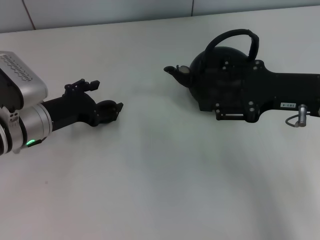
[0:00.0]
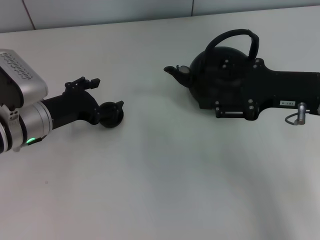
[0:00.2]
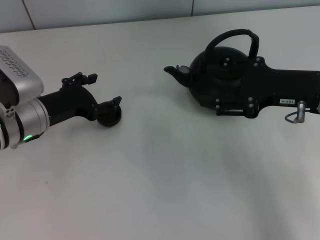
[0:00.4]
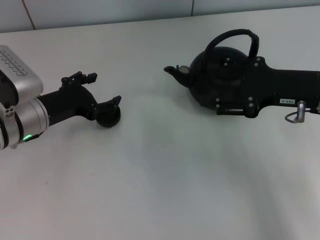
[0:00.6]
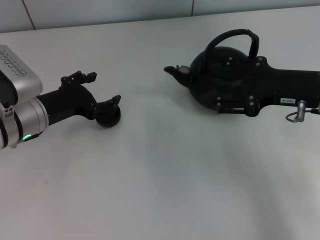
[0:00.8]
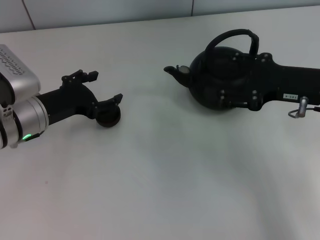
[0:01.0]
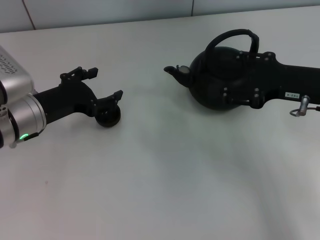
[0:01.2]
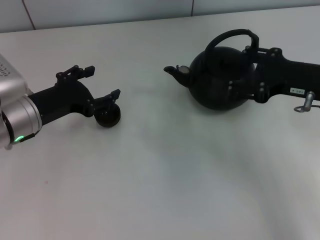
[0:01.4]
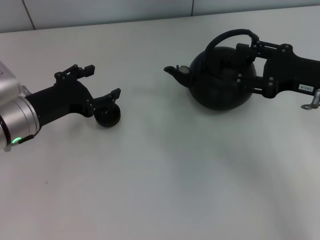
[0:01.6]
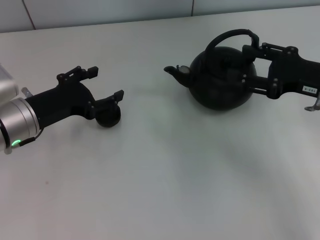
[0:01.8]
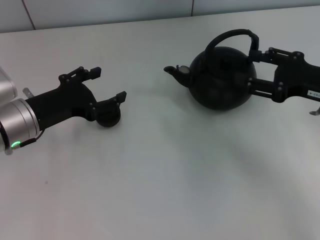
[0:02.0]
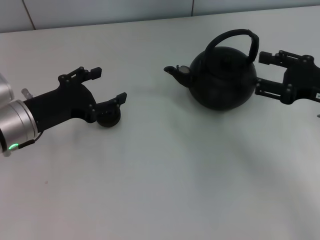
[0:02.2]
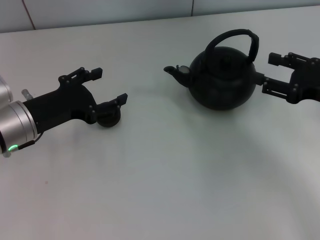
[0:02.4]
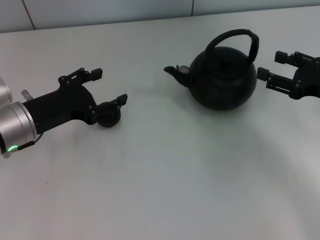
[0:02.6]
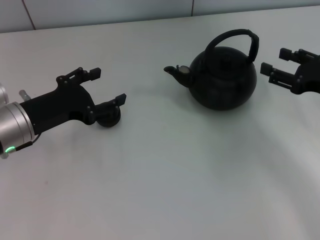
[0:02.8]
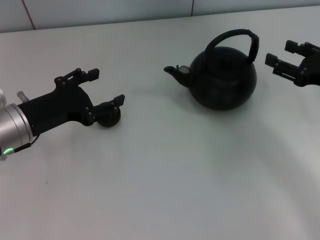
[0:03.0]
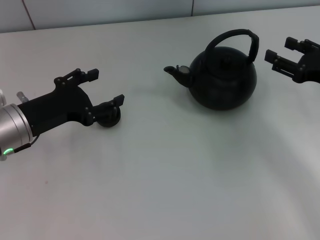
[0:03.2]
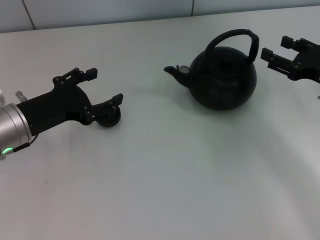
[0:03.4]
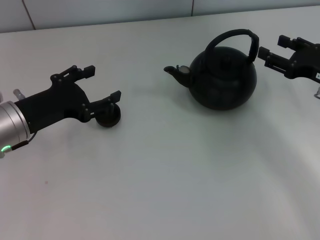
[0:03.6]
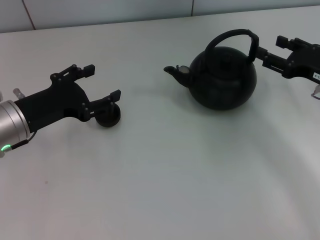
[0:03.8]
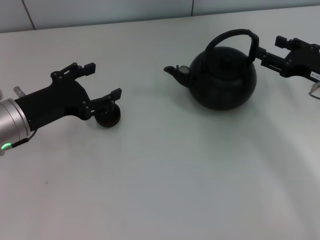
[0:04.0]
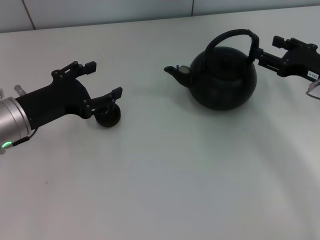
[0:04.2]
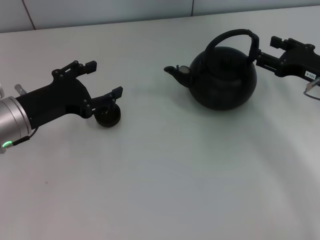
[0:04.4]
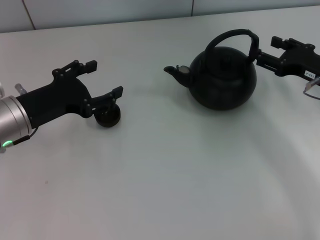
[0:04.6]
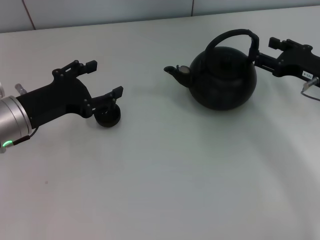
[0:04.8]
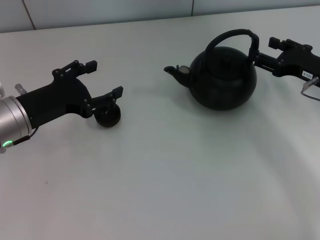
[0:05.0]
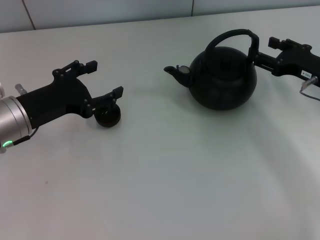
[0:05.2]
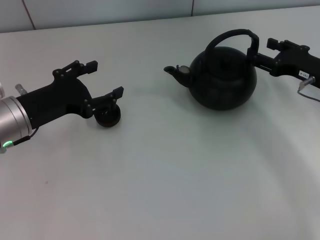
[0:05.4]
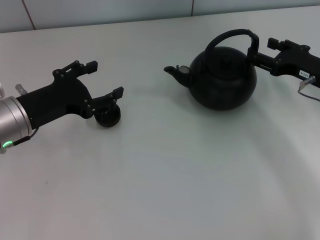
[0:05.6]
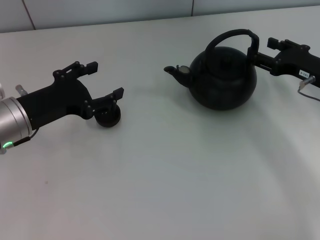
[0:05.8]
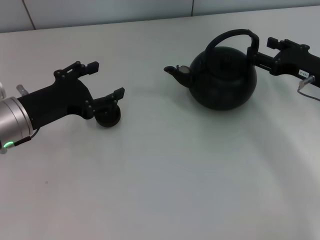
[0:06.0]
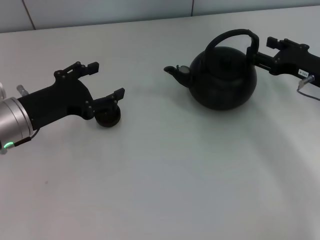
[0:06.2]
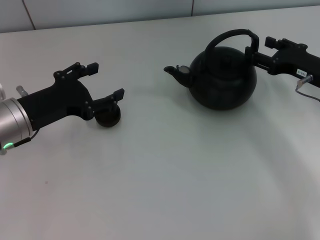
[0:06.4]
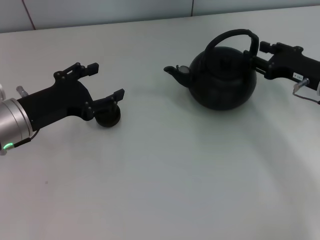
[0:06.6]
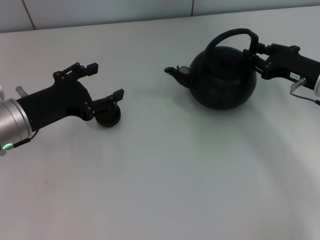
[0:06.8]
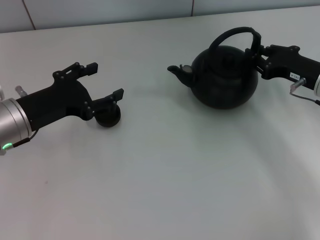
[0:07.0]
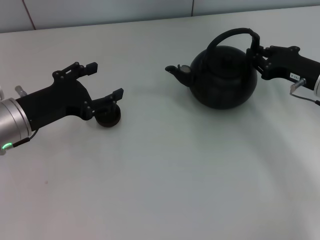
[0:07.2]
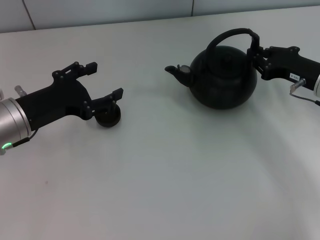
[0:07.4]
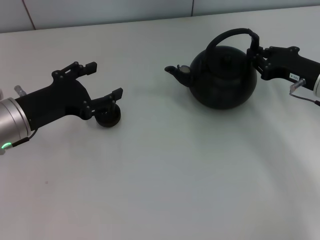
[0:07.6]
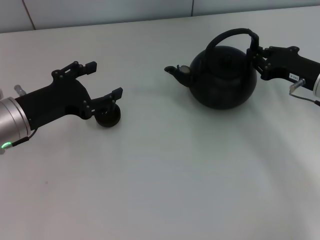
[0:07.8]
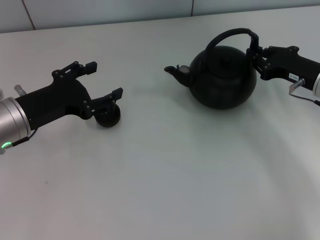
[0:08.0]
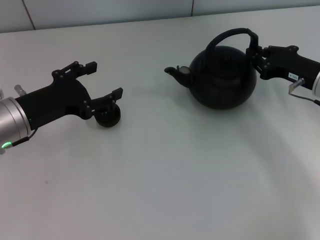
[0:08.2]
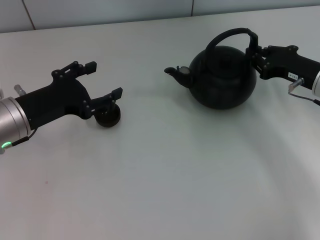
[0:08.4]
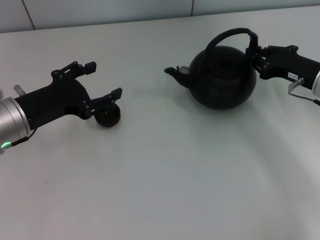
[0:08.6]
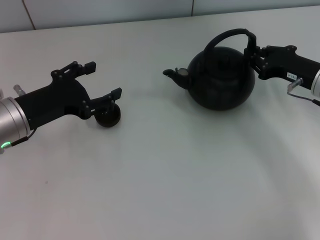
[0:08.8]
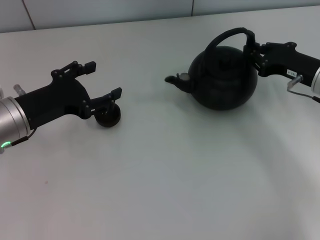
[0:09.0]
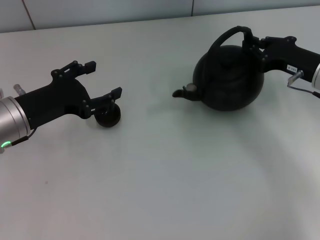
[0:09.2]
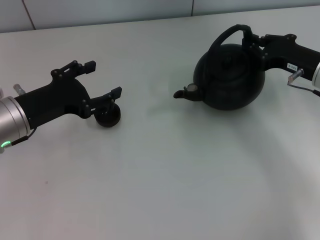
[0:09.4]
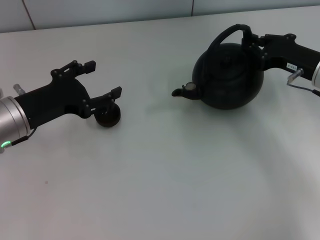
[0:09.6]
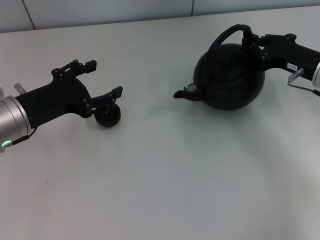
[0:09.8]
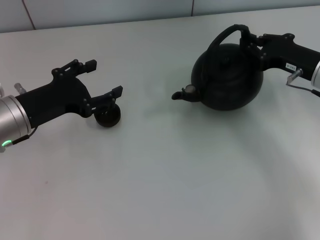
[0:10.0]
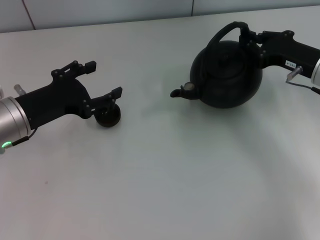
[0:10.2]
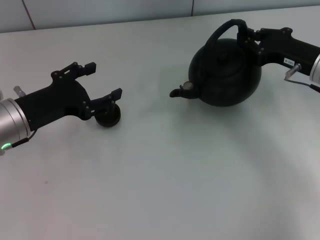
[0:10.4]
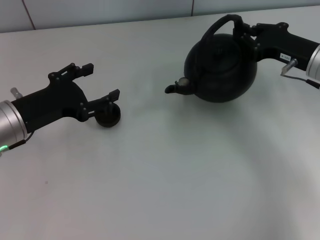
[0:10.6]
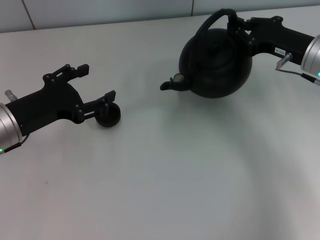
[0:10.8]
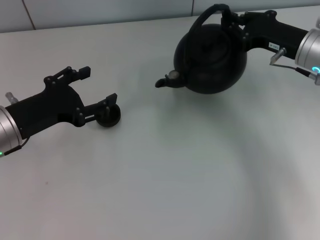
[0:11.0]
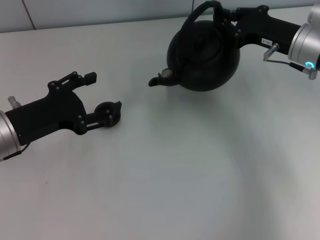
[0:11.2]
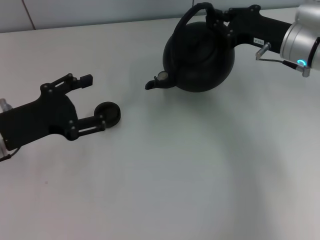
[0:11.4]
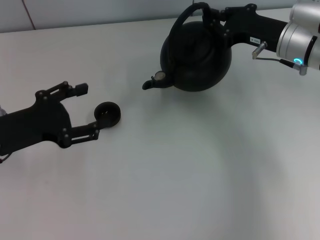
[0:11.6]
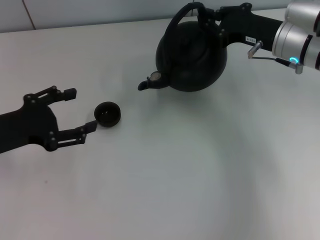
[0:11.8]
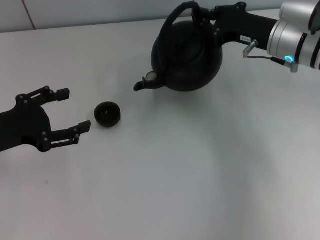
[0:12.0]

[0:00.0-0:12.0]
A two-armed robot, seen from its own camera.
Task of the whole recording: Grasp the handle of the teapot with one hand and pour tea into the teacup.
Step, 0:00.8 to 0:10.6: Pick up the teapot with the right gripper.
0:00.0 to 0:01.6: There are only small adjustments of the grippers.
0:01.6 to 0:03.0: The right gripper moves about 5 cm.
0:03.0 to 0:04.4: The grippers make only small movements.
0:04.4 to 0:06.0: Neither gripper changes place.
0:06.0 to 0:07.6: The right gripper closes.
0:07.6 to 0:09.0: Neither gripper changes place.
0:09.0 to 0:10.4: The grippers make only small movements.
0:10.4 to 0:12.0: Both grippers travel together to the left, some 5 cm.

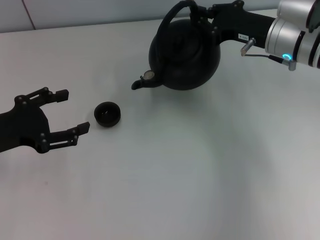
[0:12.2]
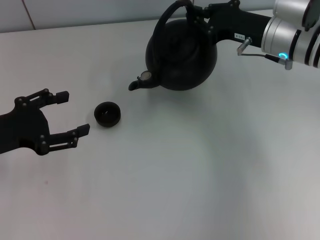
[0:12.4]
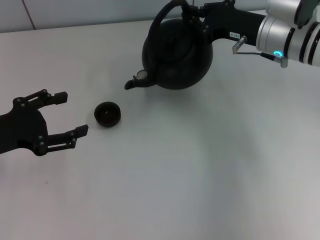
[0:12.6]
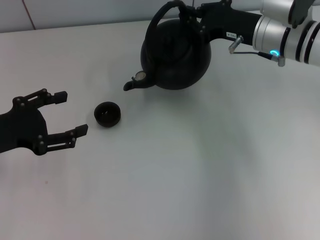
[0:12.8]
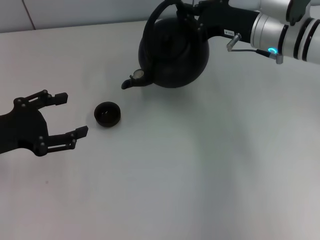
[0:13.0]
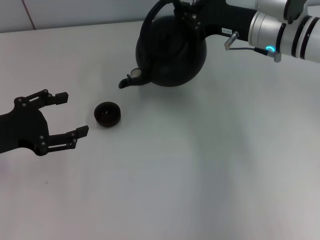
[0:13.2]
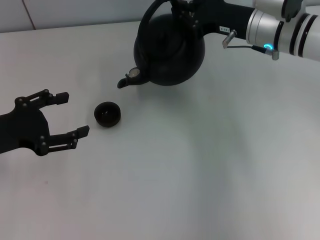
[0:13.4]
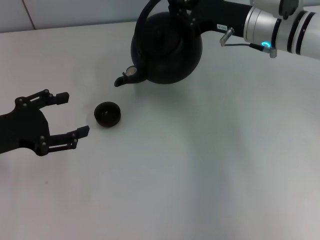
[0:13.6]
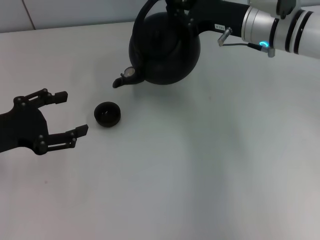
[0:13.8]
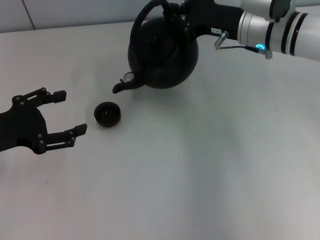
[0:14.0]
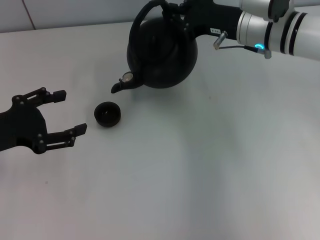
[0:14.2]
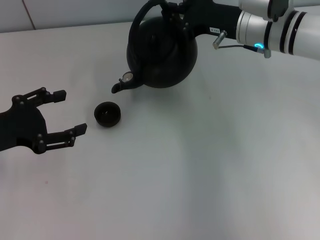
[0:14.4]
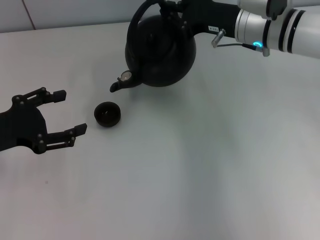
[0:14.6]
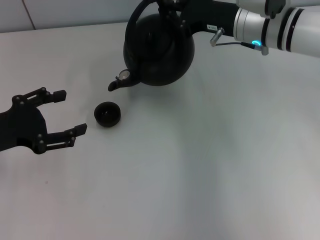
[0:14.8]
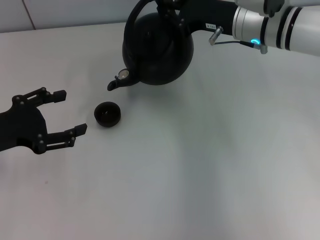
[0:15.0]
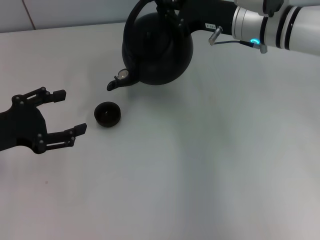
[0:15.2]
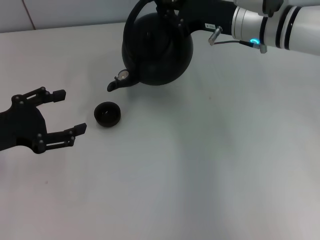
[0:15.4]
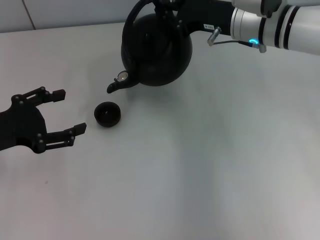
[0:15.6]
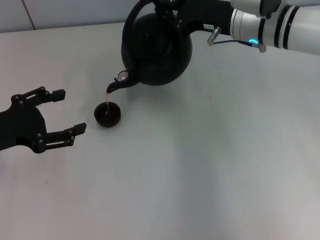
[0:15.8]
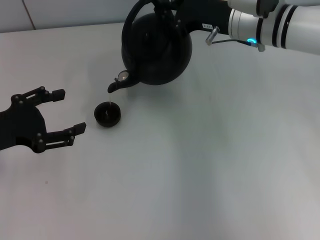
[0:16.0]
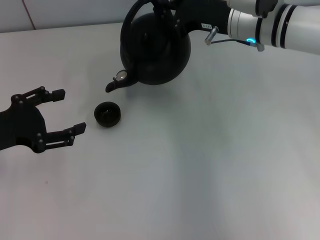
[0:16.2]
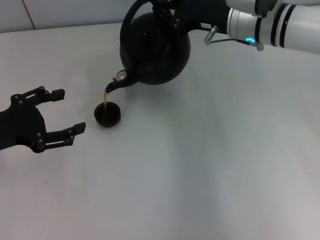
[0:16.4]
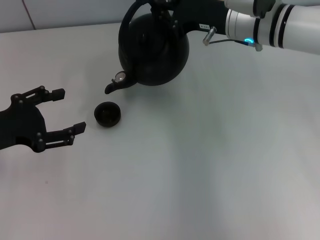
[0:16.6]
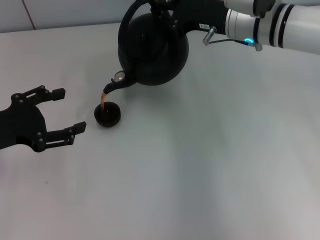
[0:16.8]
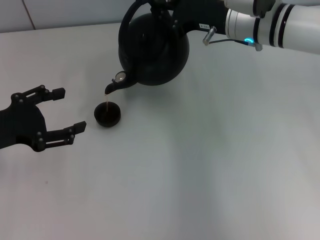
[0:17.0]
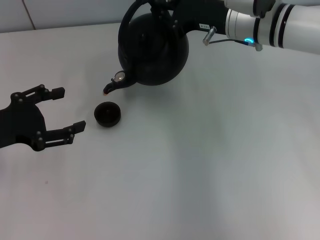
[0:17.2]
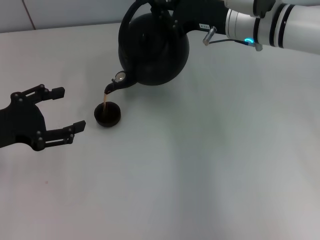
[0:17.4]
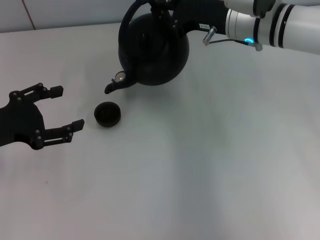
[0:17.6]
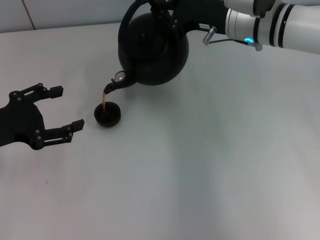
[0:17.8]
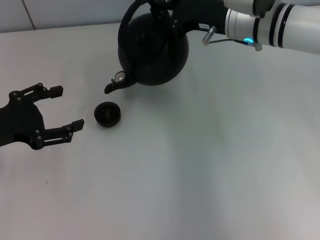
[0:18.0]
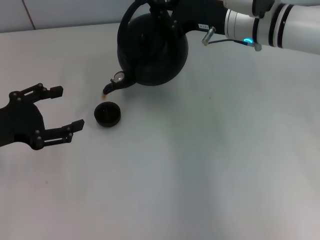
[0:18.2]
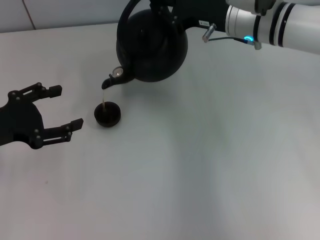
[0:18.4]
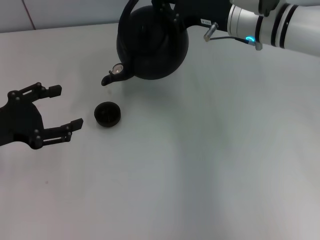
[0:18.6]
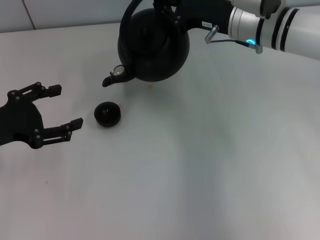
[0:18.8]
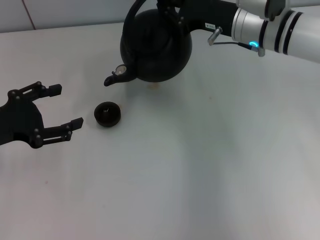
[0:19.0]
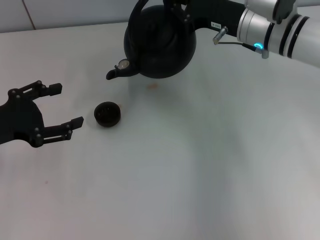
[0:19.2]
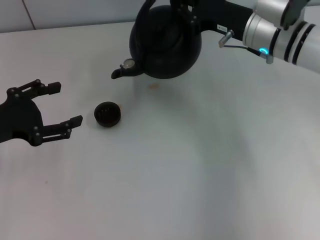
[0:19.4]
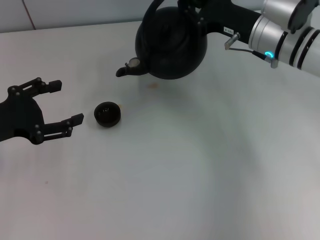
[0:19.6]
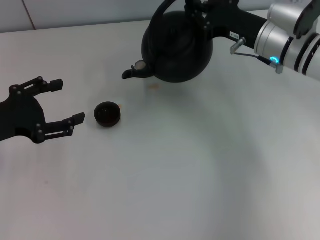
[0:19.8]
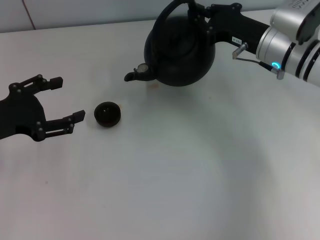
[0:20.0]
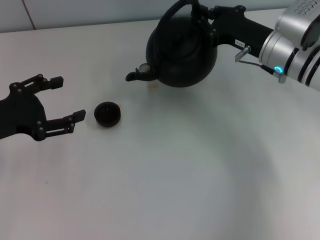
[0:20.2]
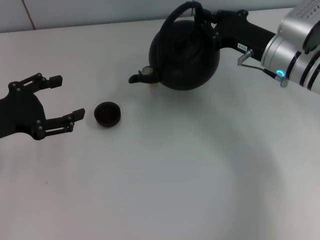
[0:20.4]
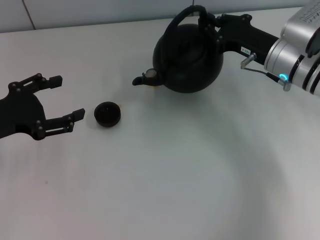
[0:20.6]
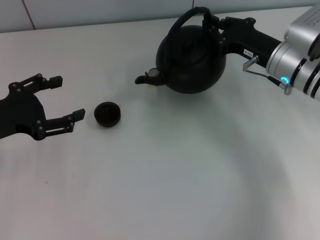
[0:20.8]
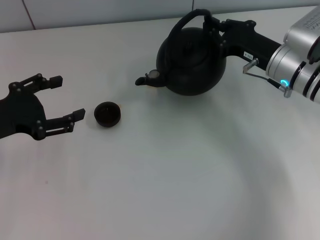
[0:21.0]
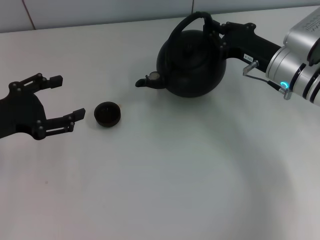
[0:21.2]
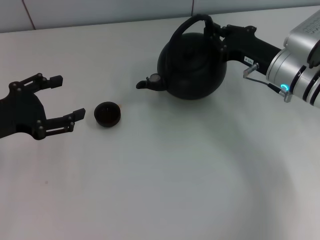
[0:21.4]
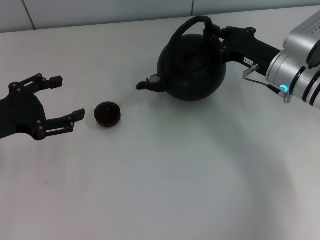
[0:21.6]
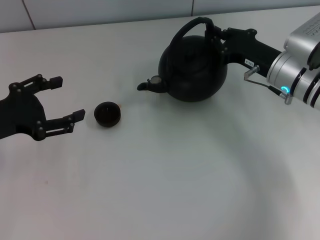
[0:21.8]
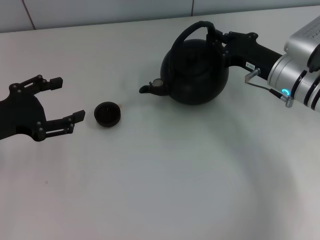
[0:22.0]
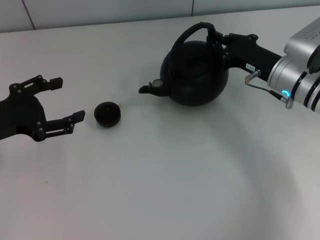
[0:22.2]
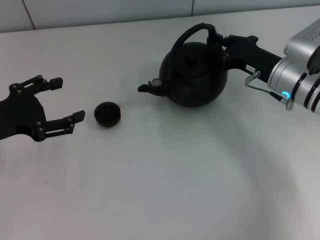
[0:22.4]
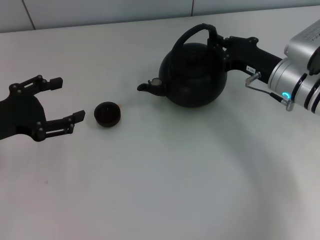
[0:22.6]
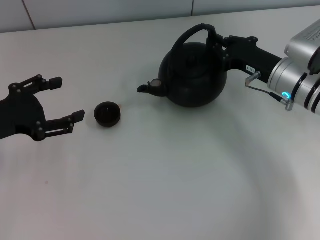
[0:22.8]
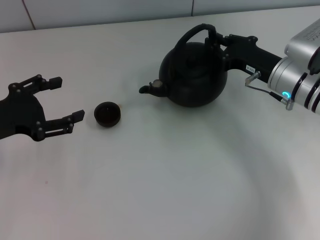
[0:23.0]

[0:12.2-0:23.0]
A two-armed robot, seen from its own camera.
Task of the whole recording: Grasp the handle of the teapot with one hand and pour tea into the teacup.
0:12.2 to 0:13.8: The grippers move only a little.
0:13.8 to 0:15.2: Neither gripper changes place.
0:15.2 to 0:18.4: The two grippers keep their place.
0:18.4 to 0:20.0: The right gripper changes place by approximately 5 cm.
0:20.0 to 0:21.4: The grippers move only a little.
0:21.4 to 0:23.0: The two grippers keep their place.
